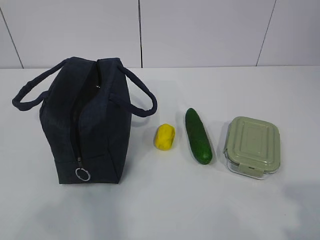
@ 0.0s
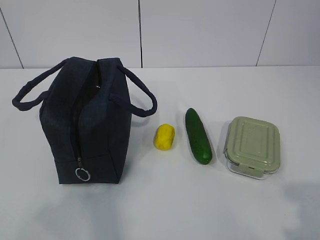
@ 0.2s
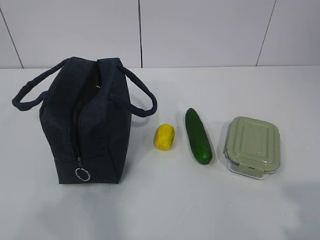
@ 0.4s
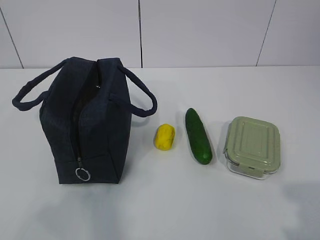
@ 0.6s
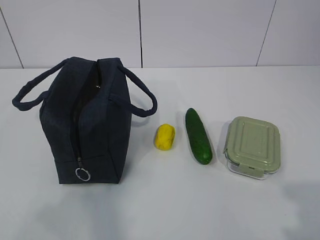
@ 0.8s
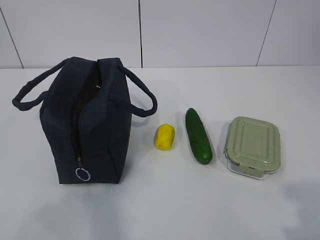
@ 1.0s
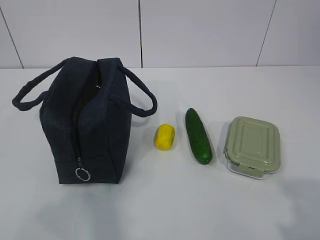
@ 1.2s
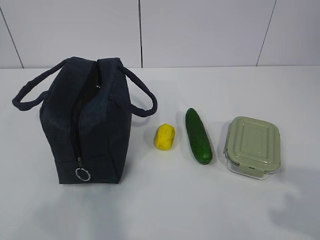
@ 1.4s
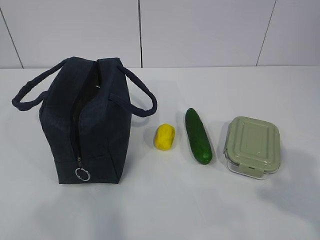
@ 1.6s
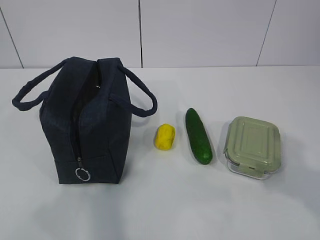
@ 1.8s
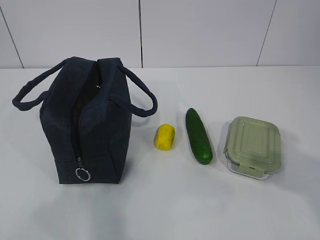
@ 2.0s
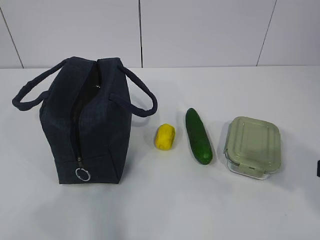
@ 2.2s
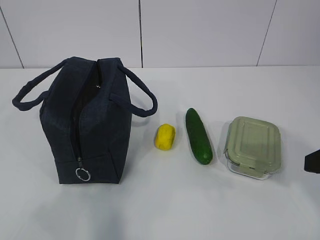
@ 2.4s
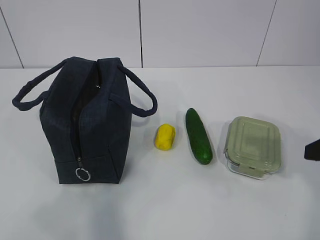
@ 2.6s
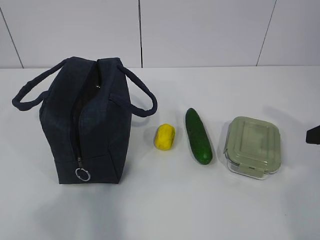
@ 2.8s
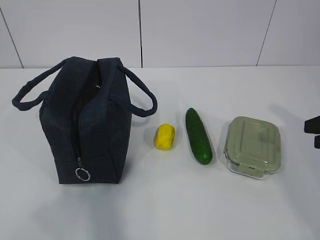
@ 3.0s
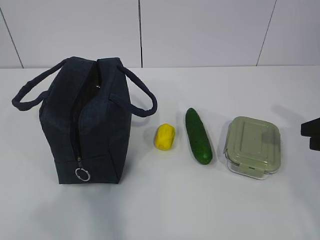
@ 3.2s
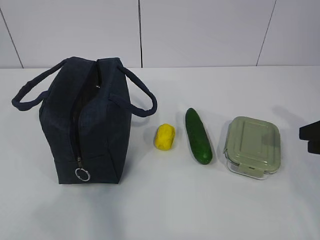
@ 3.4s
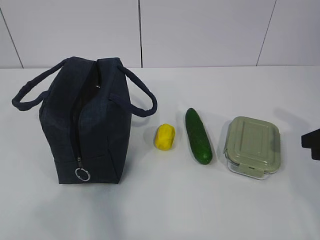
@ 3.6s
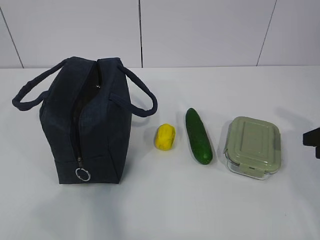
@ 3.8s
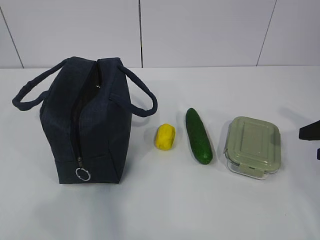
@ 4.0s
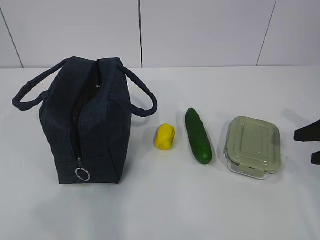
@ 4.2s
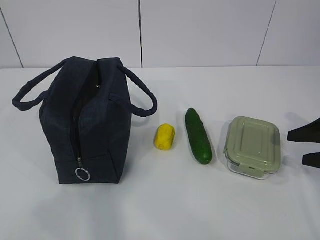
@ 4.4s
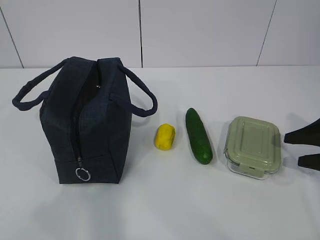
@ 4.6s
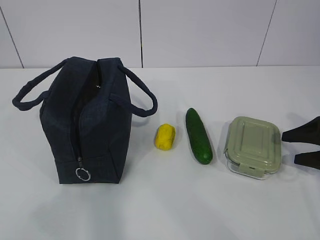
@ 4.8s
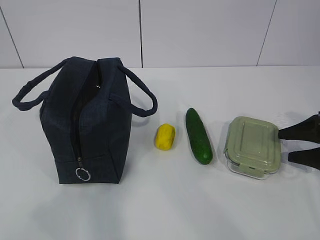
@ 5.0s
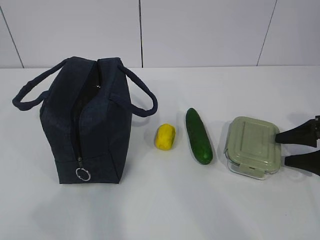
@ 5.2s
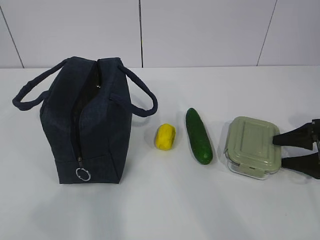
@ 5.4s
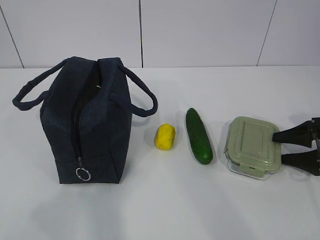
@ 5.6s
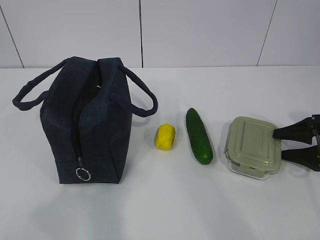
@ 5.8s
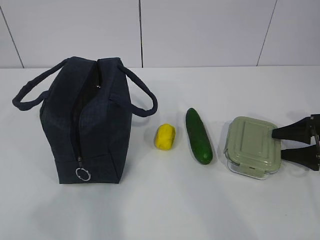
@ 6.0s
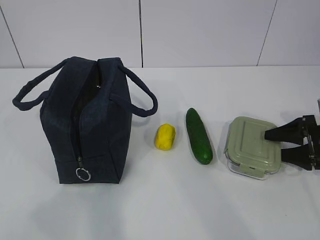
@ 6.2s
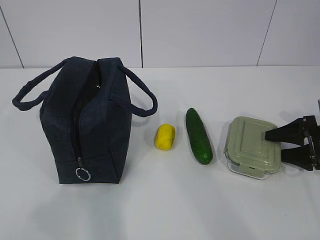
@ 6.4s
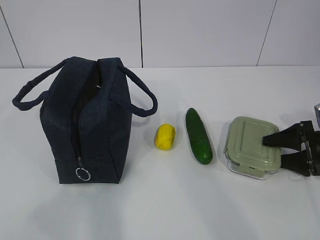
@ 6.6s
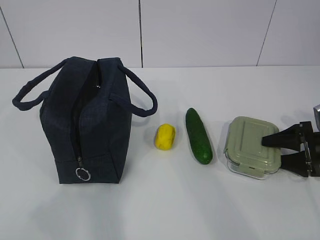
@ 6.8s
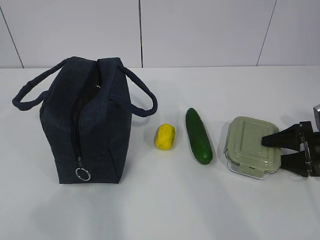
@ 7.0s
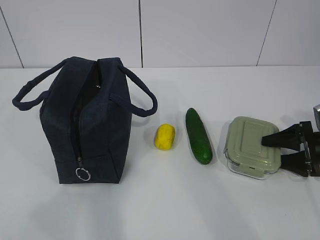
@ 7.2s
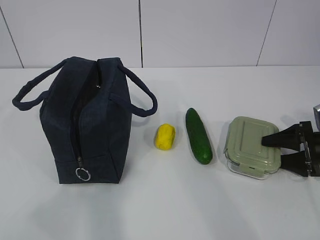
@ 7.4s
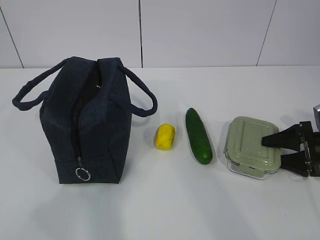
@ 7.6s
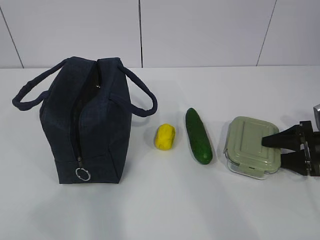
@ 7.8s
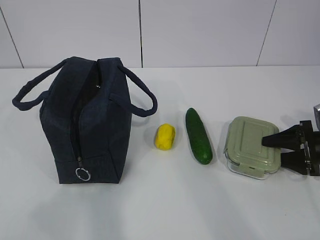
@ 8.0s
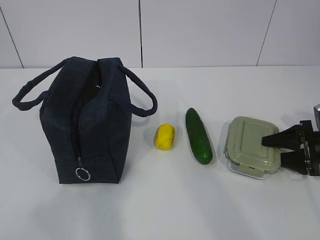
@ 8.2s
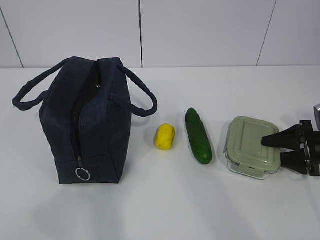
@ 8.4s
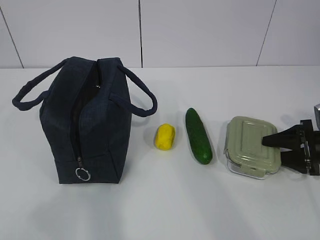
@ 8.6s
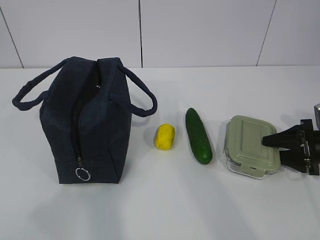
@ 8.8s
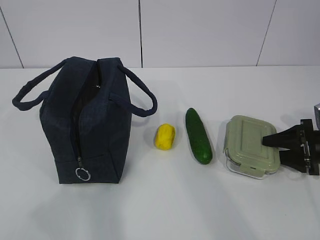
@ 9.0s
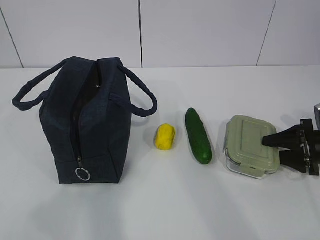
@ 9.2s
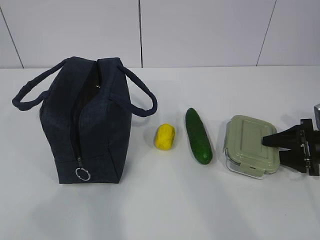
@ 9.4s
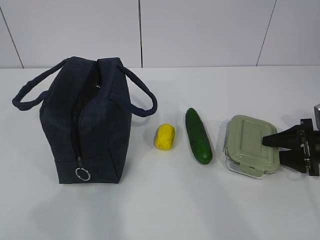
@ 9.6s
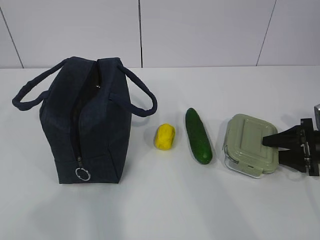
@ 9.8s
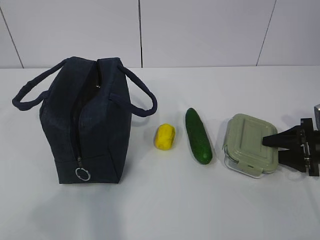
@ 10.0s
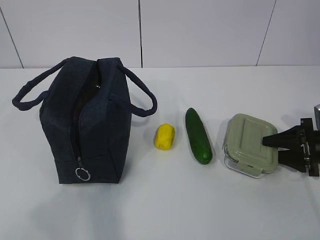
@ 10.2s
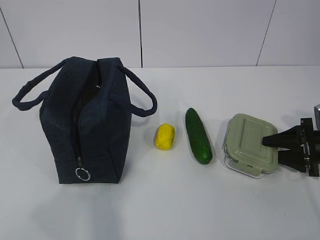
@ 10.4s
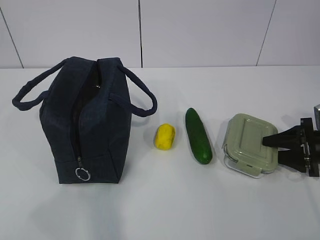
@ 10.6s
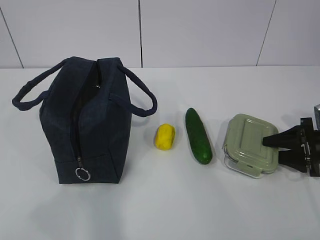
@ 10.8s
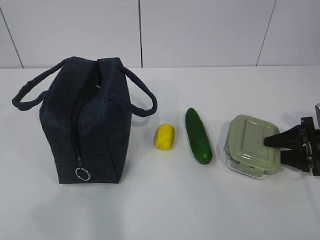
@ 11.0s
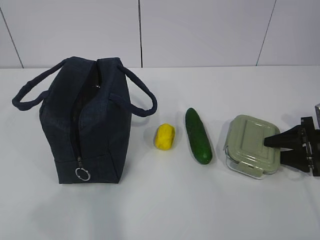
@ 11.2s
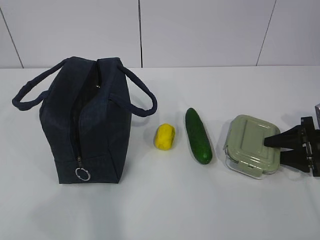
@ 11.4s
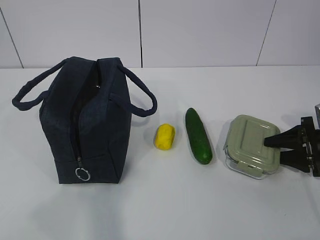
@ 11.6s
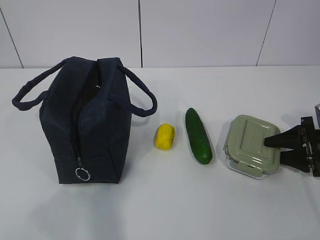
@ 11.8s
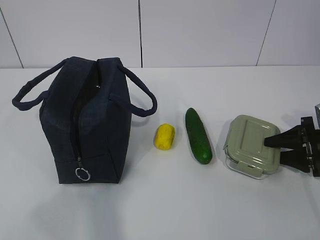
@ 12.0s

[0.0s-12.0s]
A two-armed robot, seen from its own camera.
Step, 0.0s to 11.6s: Grab the lunch box with your right hand.
1.6s to 3.0s: The right gripper goes roughly 20 cm forward.
3.0s to 4.4s: The right gripper shifts approximately 10 cm downward, and opens its fingers.
4.4s to 6.0s: The right gripper heads downward and forward, covering some 10 cm.
6.0s to 7.6s: There are only small adjustments of the grippers.
7.6s to 10.4s: Neither gripper changes place.
10.4s to 12.0s: Neither gripper changes place.

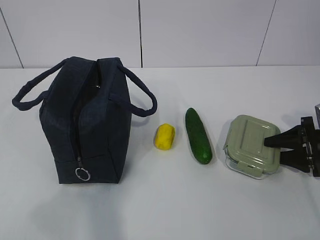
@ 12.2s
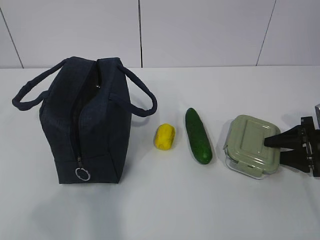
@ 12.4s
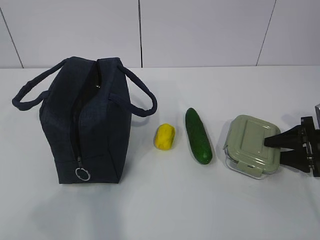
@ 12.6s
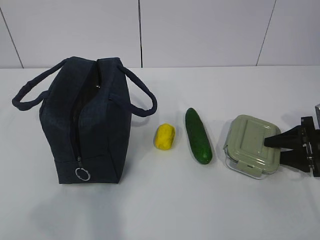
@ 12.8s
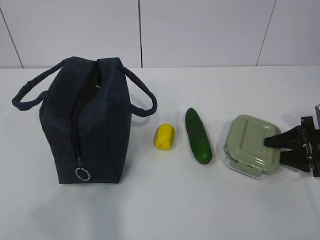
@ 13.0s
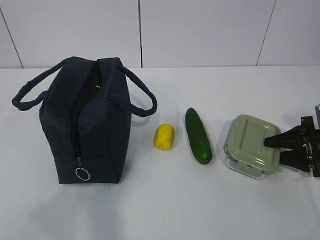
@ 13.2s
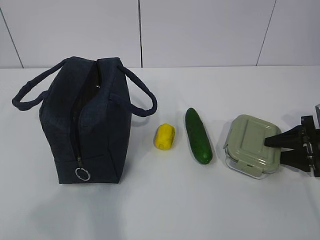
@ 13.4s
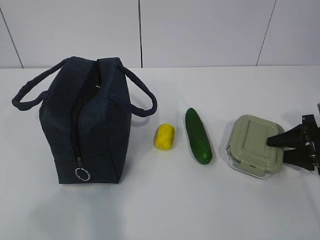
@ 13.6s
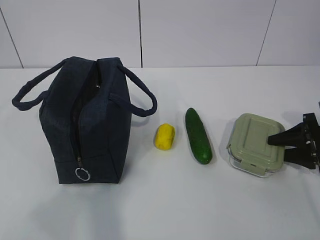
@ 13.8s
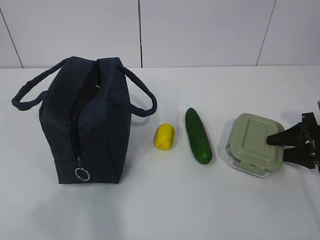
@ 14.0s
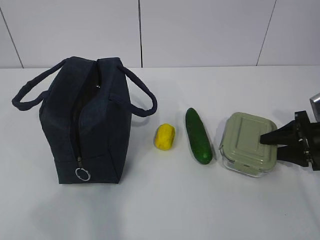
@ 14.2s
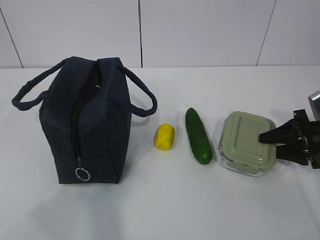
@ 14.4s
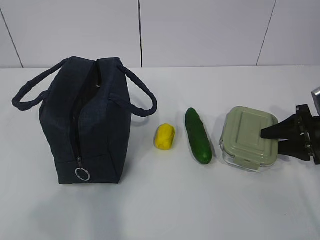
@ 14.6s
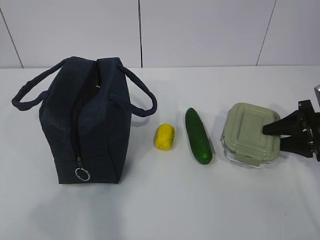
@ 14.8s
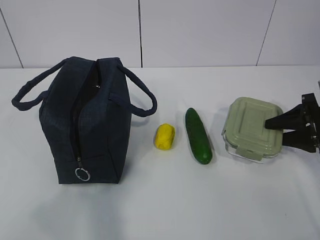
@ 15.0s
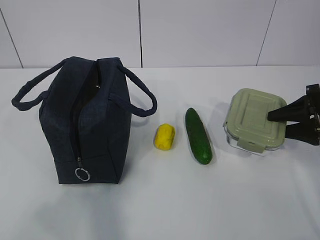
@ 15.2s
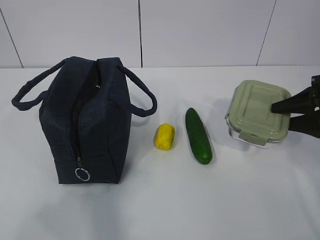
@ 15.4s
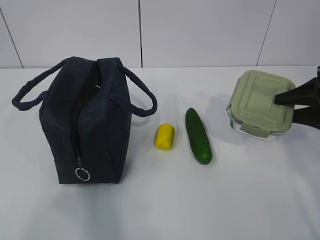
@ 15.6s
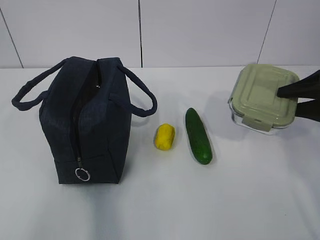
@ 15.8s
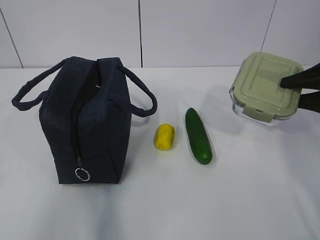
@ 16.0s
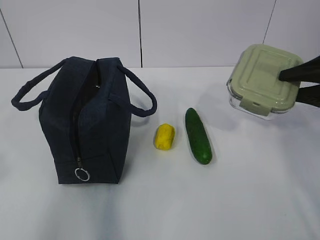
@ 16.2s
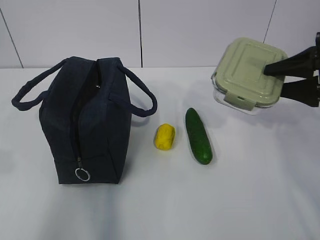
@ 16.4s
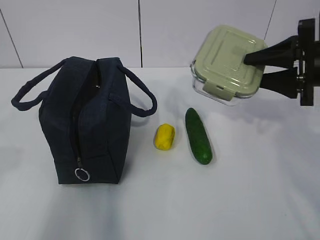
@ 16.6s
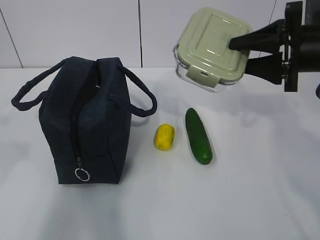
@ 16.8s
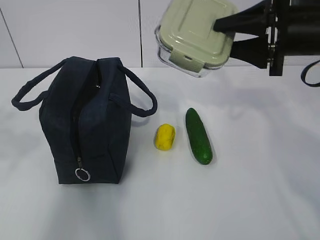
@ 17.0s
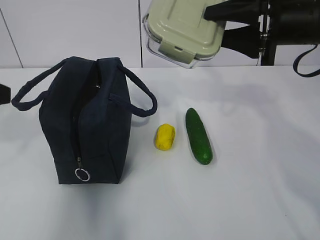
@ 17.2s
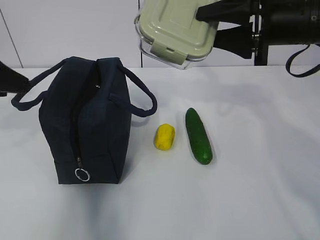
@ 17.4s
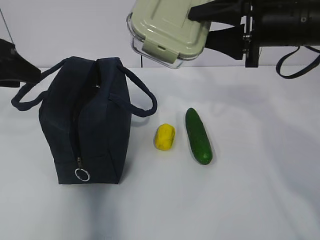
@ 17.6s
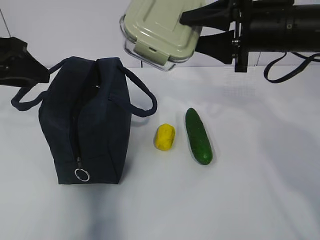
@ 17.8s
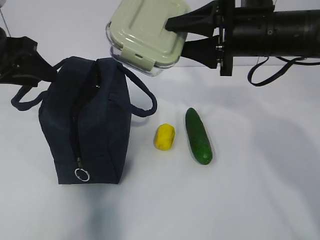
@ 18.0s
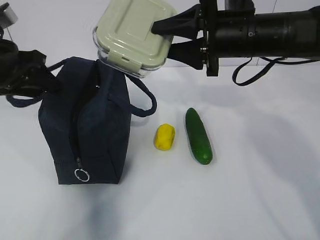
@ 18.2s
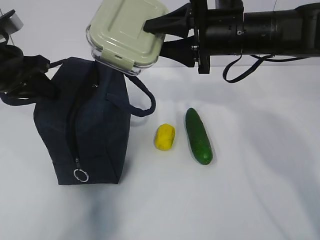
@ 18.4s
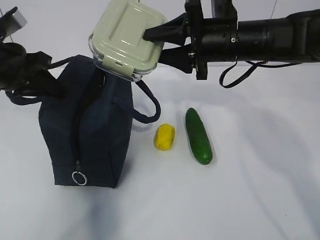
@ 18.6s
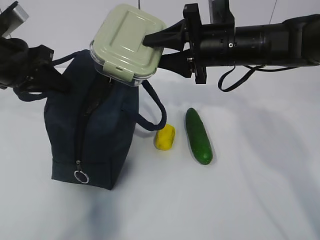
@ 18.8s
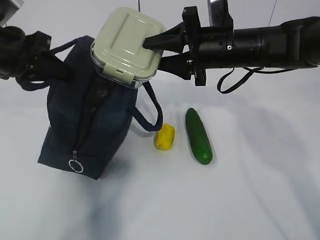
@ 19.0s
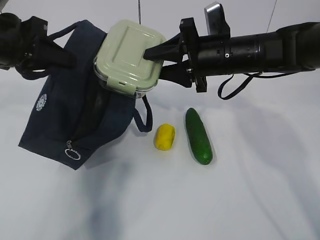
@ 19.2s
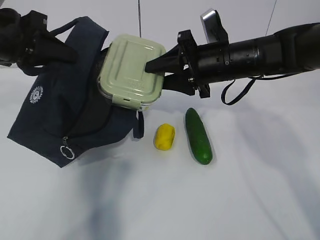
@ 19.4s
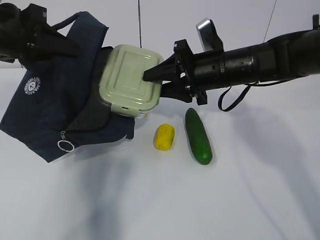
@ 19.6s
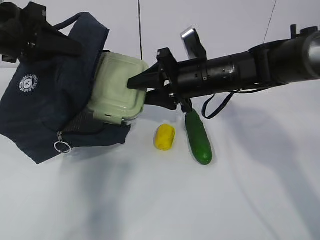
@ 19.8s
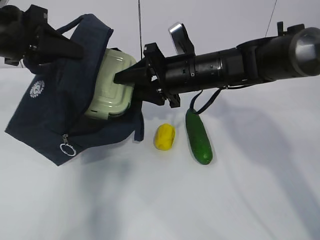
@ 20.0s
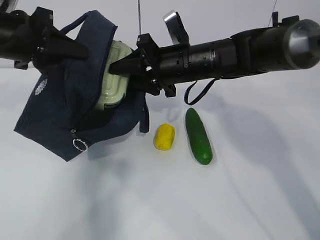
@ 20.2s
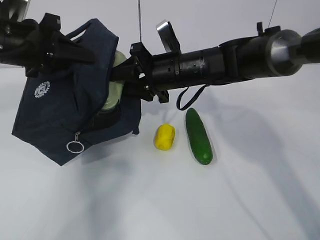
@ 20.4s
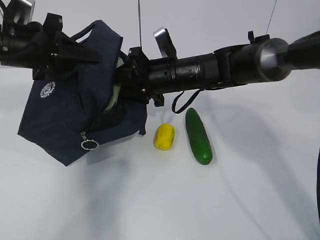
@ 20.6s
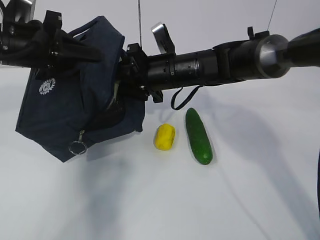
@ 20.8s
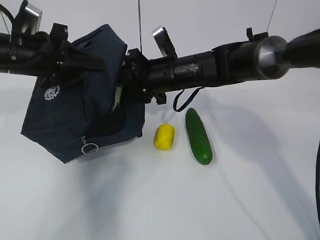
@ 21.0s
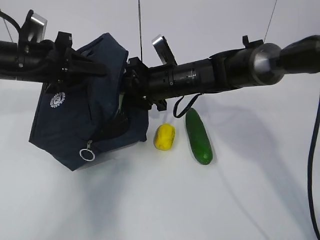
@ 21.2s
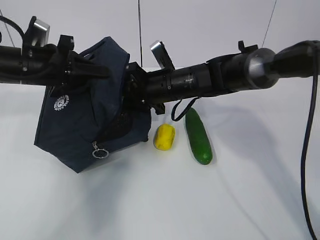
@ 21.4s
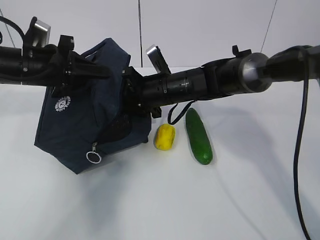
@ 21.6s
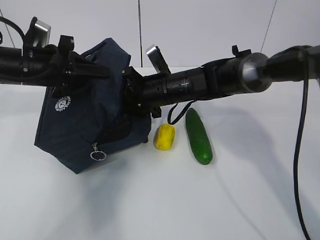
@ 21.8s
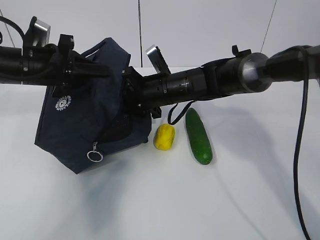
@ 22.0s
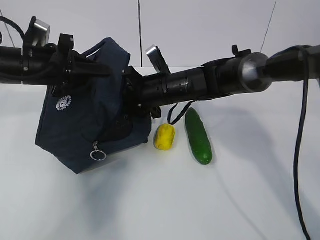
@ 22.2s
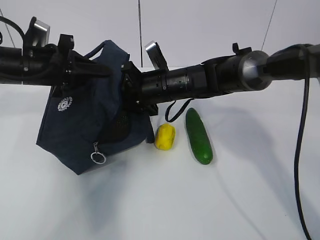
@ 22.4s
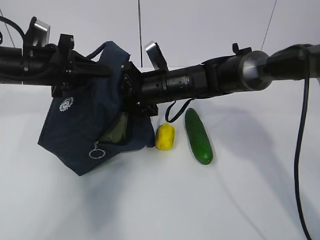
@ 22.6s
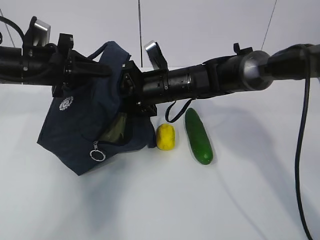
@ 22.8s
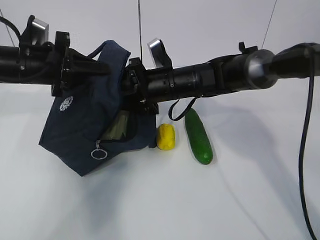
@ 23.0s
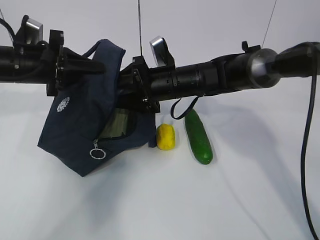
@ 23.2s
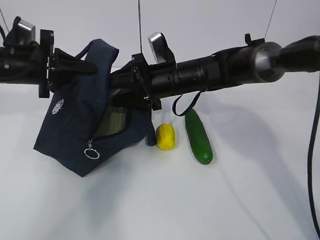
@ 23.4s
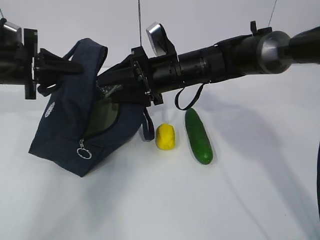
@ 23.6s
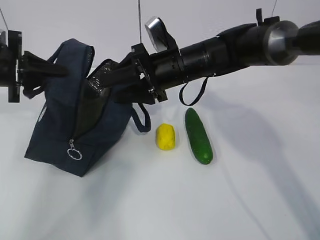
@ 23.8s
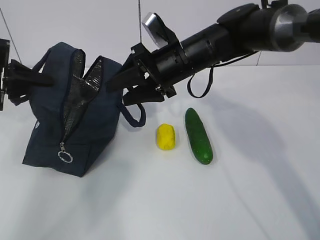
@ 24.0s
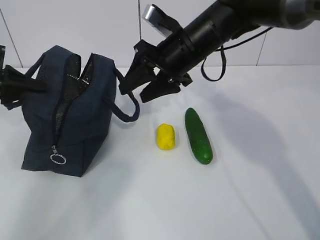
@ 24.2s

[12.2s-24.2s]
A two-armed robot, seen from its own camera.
Step, 15.6s to 19.4s: Place it into the bag with your right hand.
12.2s to 13.8s: Both grippers stay about where they are.
13.8s to 15.2s: The right gripper is displaced upward by some 5 cm.
15.2s to 16.6s: The left gripper is displaced forward by about 10 cm, while the right gripper shifts about 10 cm upward and to the left.
16.6s to 18.2s: The left gripper shifts approximately 20 cm forward. Meanwhile the right gripper shifts some 15 cm to the left.
18.2s to 19.8s: The right gripper shifts roughly 10 cm downward; the left gripper closes up.
19.8s to 21.2s: The left gripper travels downward by about 10 cm. Meanwhile the right gripper shifts by roughly 5 cm.
21.2s to 22.6s: The grippers move only a little.
22.6s to 24.2s: The right gripper goes about 10 cm upward. Meanwhile the left gripper shifts about 10 cm to the left.
